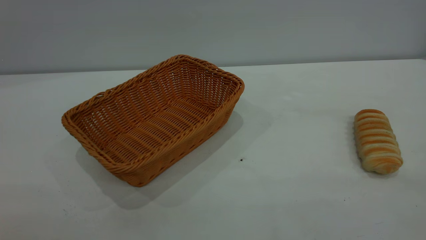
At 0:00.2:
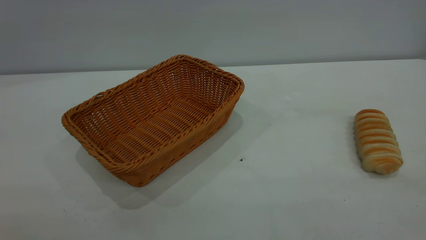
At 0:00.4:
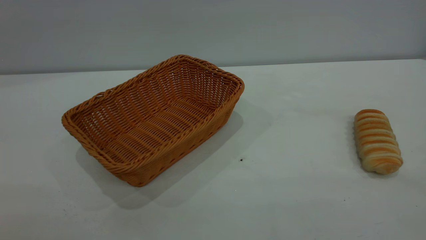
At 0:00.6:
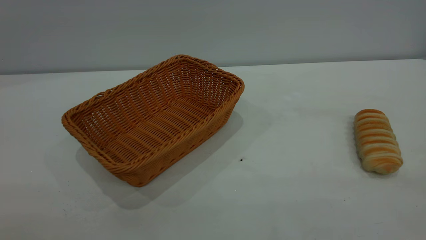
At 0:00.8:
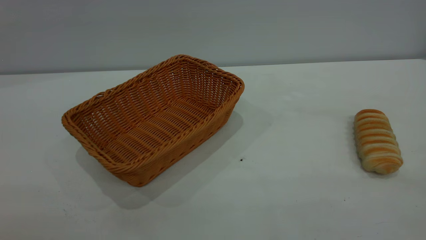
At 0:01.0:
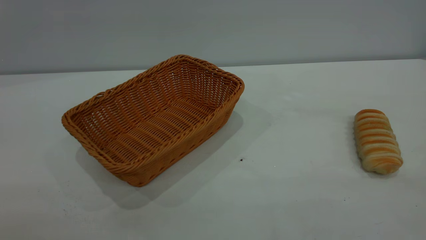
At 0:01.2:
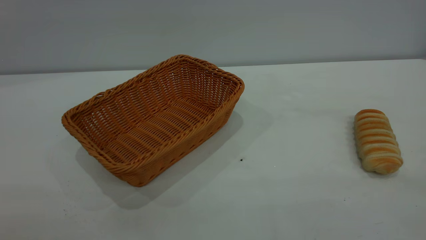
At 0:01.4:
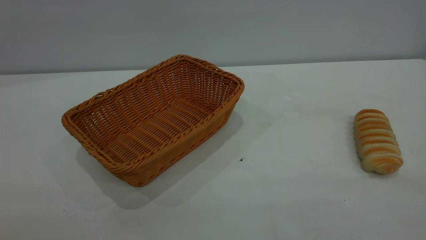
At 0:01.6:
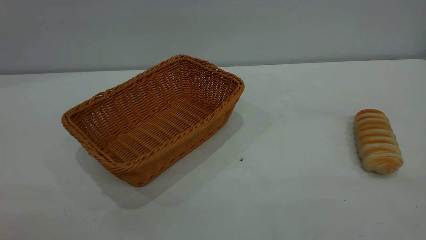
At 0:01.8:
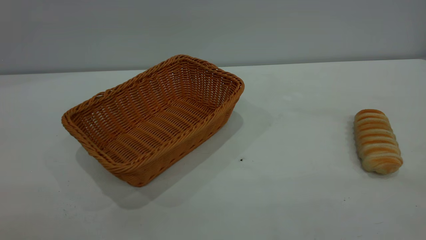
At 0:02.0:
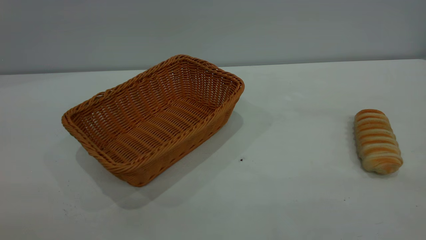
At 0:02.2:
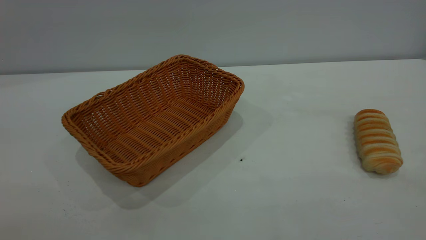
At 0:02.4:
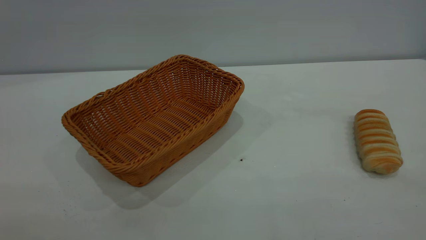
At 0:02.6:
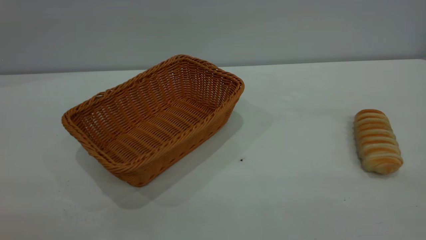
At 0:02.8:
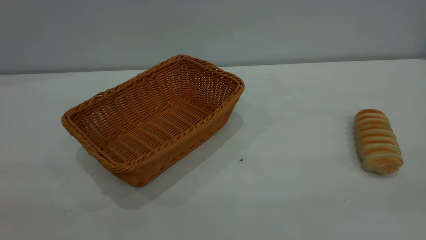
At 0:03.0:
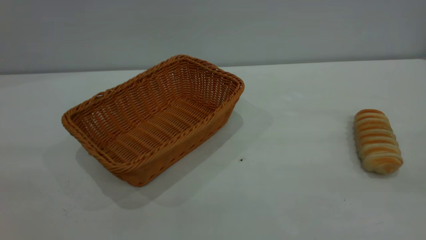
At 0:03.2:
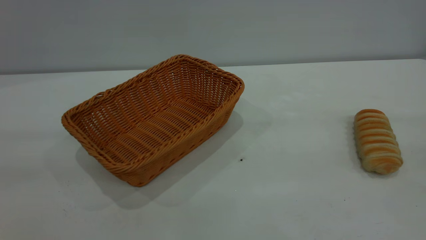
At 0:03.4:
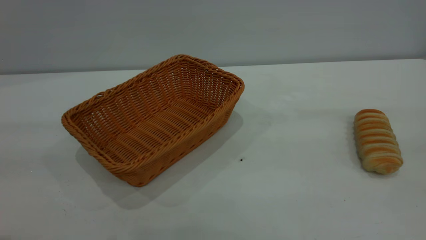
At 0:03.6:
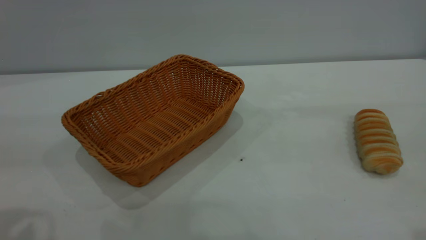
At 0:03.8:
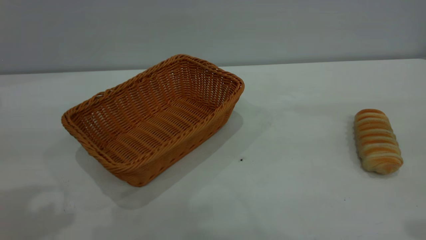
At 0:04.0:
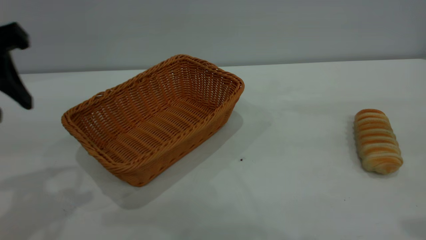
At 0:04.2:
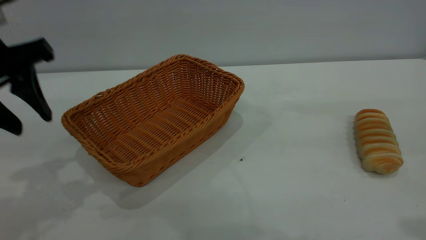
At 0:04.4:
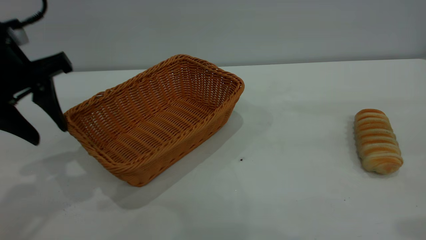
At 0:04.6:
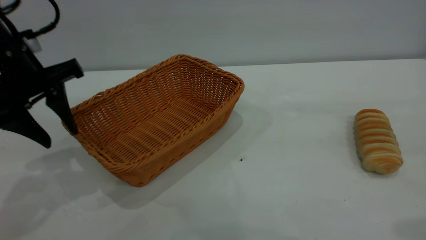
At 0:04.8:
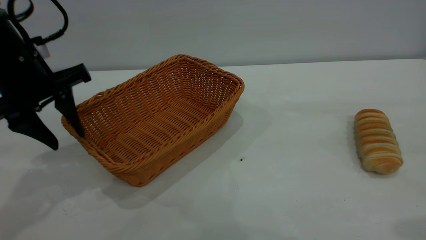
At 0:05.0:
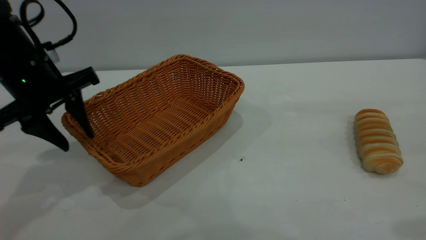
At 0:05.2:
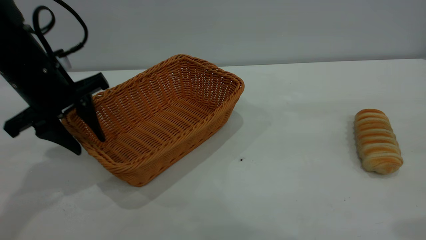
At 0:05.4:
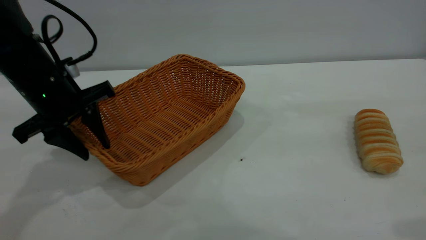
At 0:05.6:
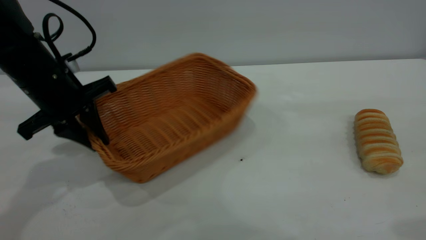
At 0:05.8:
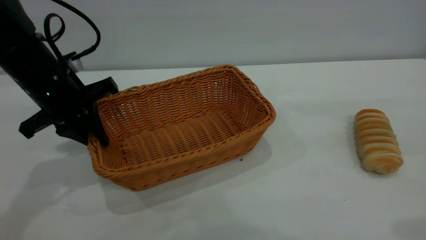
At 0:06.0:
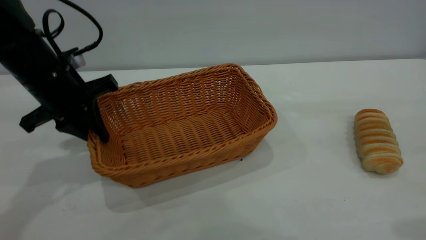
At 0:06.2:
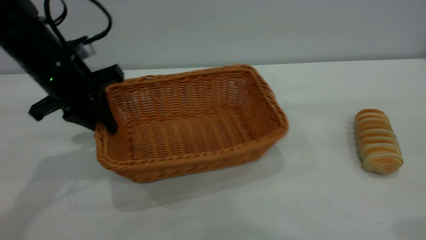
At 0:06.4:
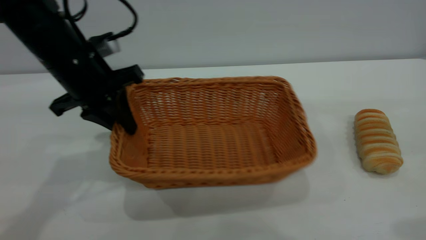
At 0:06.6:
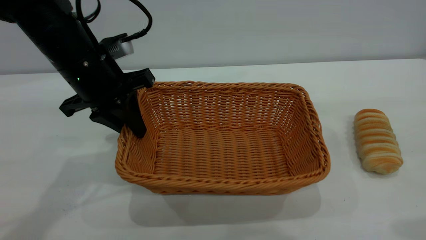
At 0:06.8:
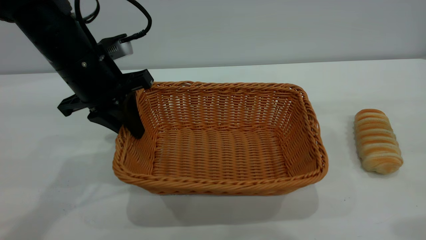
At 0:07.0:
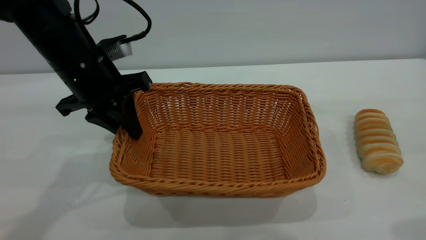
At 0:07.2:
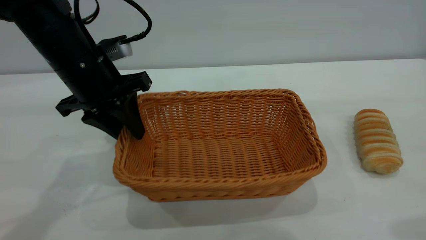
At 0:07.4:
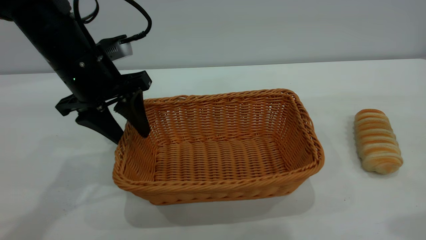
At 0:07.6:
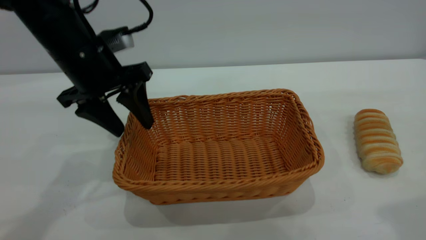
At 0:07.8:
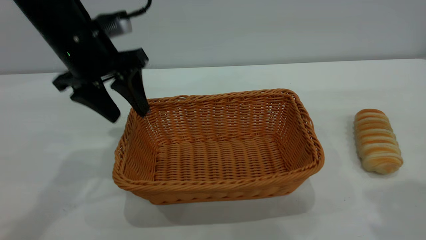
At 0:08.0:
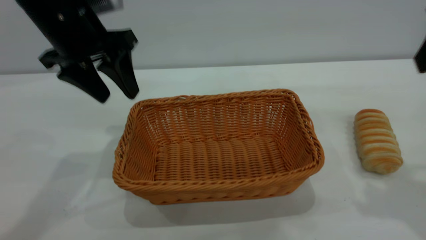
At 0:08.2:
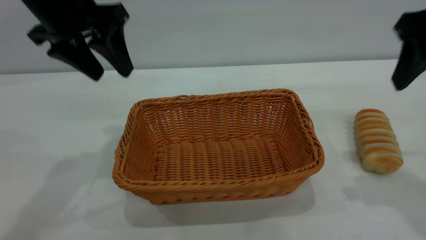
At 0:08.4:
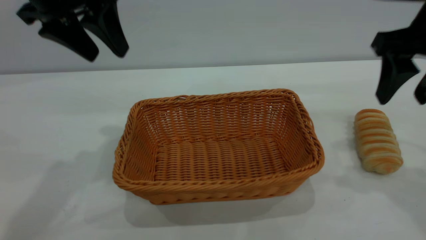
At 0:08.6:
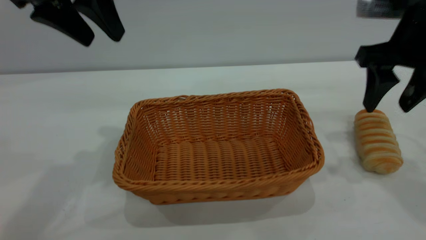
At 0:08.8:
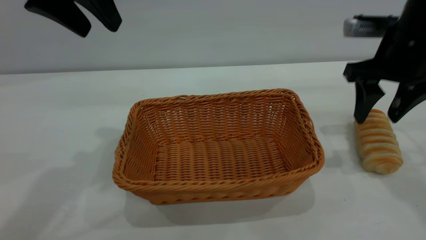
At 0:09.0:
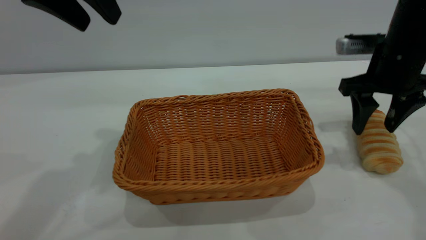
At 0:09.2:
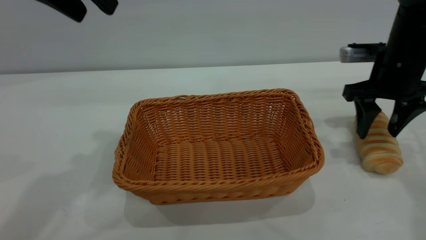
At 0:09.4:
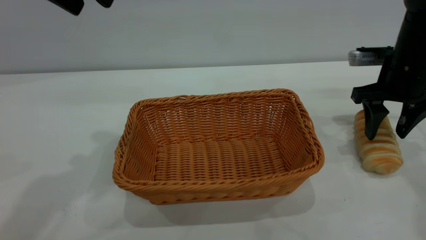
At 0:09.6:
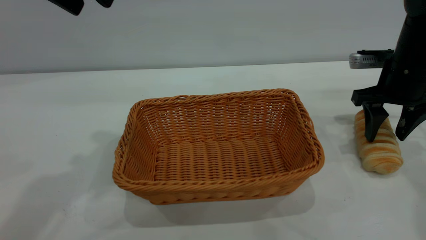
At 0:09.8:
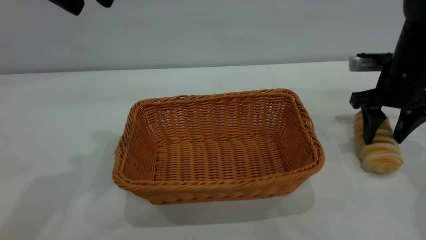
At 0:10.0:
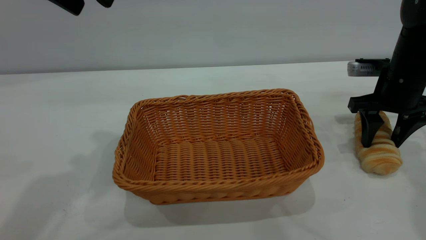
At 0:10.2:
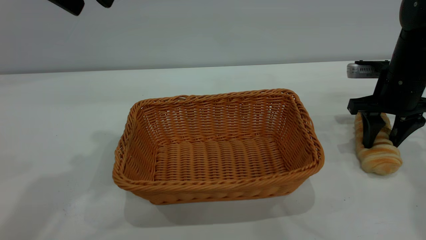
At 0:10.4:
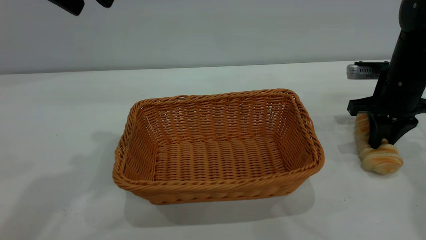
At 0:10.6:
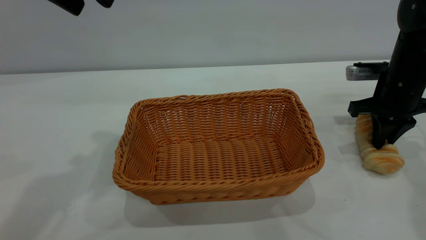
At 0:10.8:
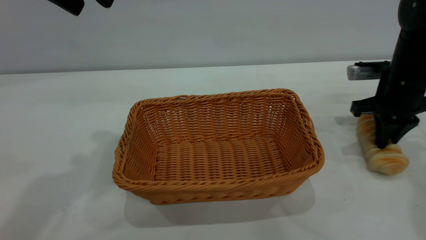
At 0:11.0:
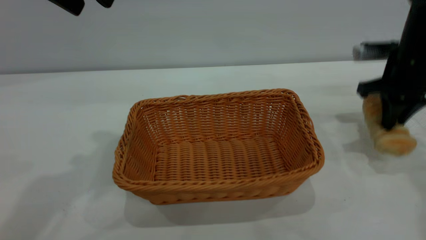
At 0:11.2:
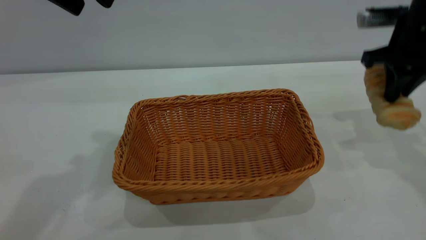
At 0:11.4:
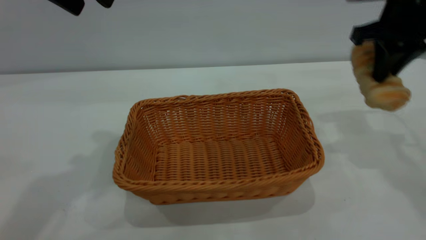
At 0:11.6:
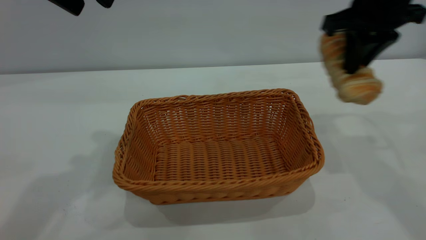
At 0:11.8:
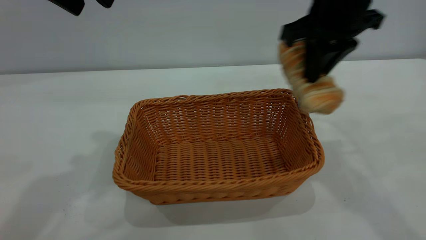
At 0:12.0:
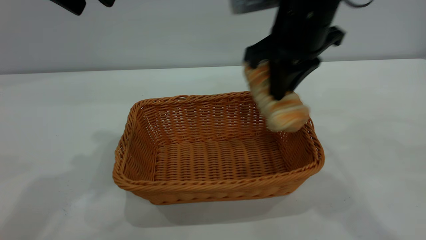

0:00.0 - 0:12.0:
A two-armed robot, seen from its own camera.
Task of the whole recording: One hand grasps the yellow basket and places it in the middle of the table, while the other hand picks up the long bread and puts it into the yellow basket.
Step, 0:00.0 - 0:08.0: Move the basket to the center of view.
0:00.0 - 0:01.6: Both grippers stay put.
0:03.0 - 0:04.4: The left gripper travels forward and downward by about 30 cm.
0:04.4 - 0:06.0: The left gripper moves downward and forward, some 10 cm, and closes its fingers.
0:06.0 - 0:07.6: The left gripper is displaced to the right by about 5 cm, and opens its fingers.
0:07.6 - 0:09.0: The left gripper heads upward, covering approximately 15 cm; the right gripper shifts some 25 cm forward and downward.
0:09.0 - 0:10.4: The right gripper is displaced downward by some 5 cm, and closes.
0:10.4 - 0:12.0: The right gripper is displaced to the left and upward by approximately 25 cm.

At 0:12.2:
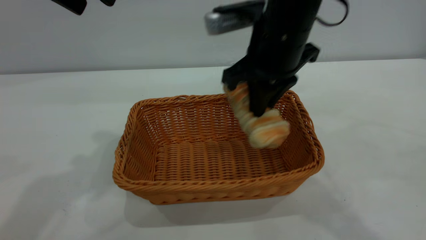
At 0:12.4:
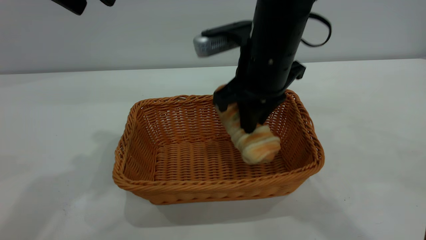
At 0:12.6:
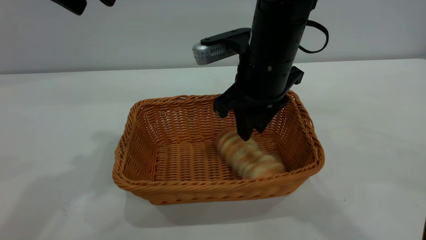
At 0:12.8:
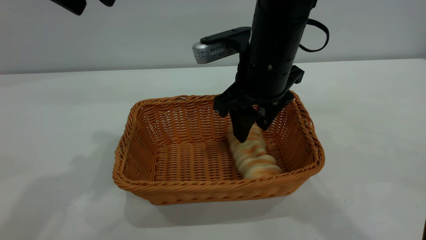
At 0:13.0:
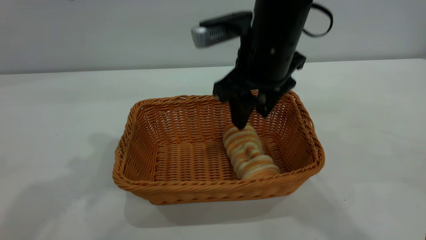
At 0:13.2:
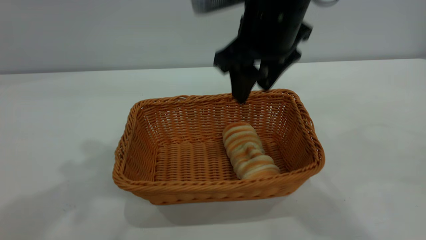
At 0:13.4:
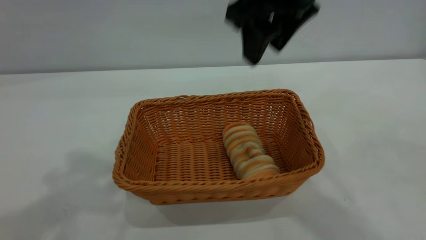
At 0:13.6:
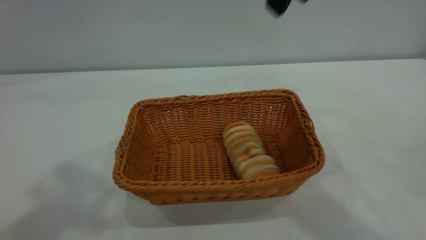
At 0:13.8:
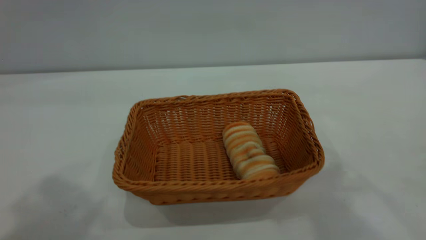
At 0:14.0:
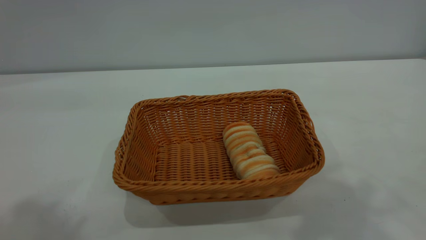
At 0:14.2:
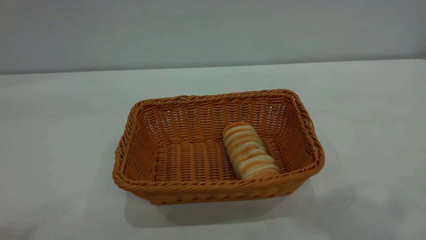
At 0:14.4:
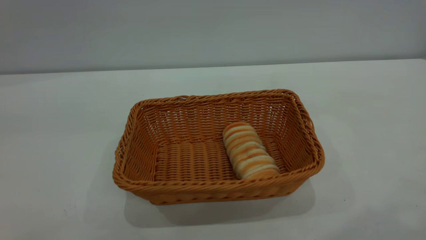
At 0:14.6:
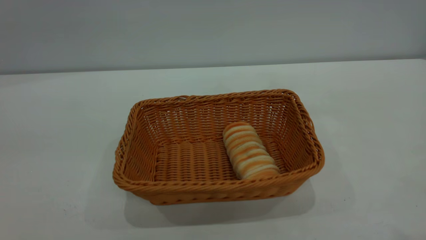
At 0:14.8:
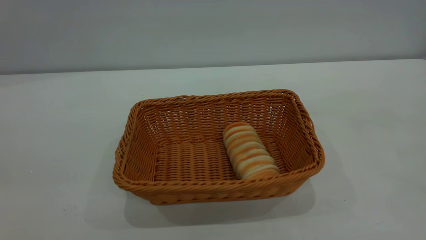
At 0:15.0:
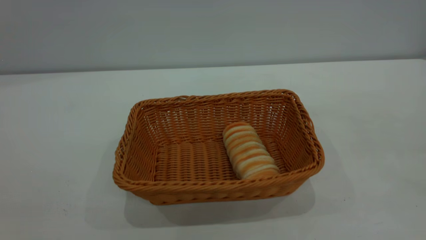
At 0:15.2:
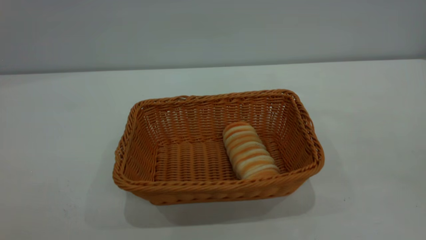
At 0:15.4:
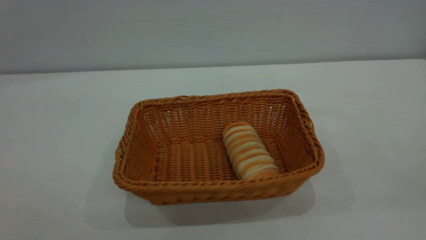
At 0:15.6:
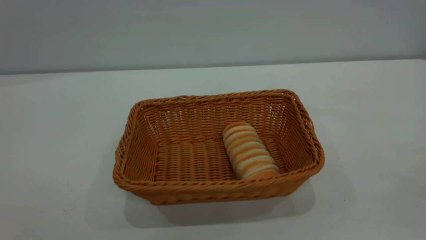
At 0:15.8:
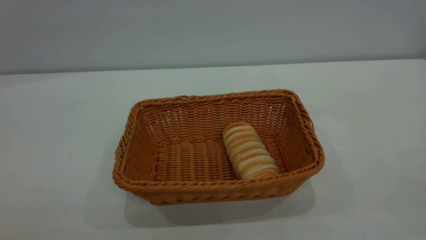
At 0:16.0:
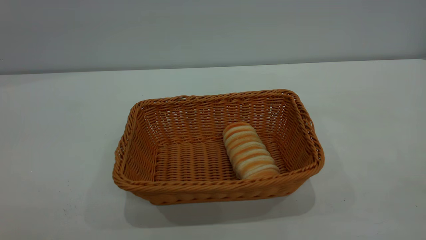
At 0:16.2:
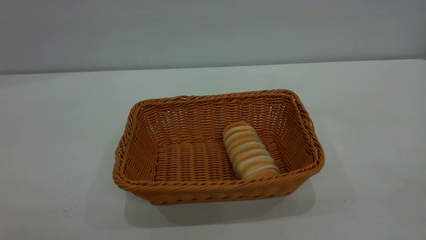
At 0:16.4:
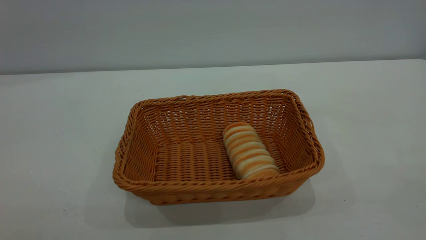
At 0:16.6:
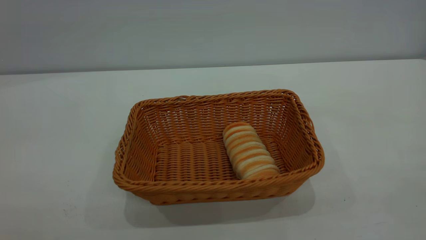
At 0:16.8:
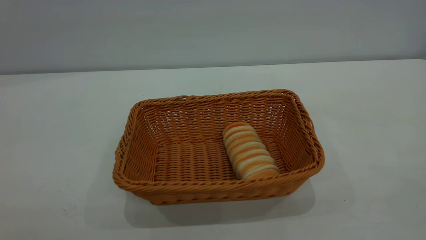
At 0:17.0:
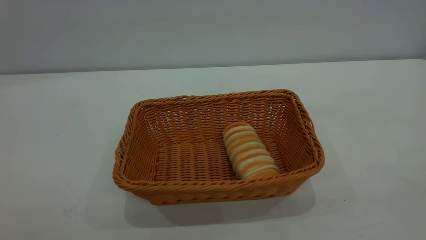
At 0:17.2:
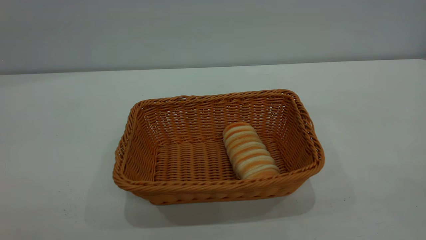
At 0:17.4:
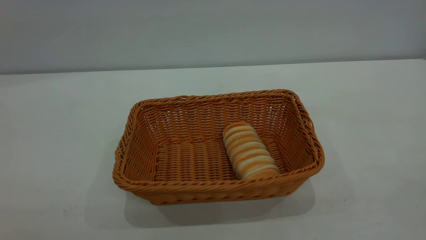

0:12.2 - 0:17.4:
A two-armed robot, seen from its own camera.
Task of the whole recording: One hand grasps the yellow basket and places it in the middle of the table, while the other hand picks up the long bread and puts it into the yellow basket.
0:12.2 - 0:14.0: The right gripper travels upward and backward by some 25 cm, and opens its fingers. The left gripper is displaced backward and upward by roughly 20 cm.
